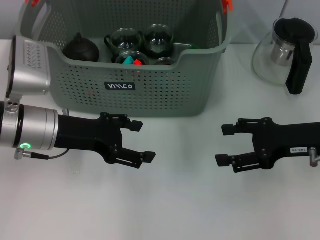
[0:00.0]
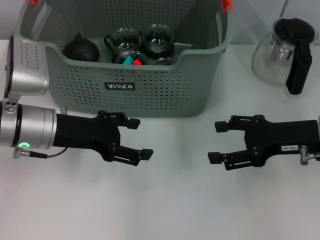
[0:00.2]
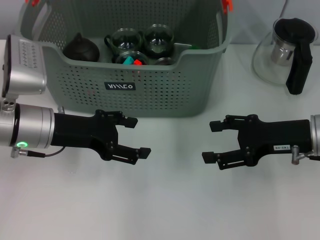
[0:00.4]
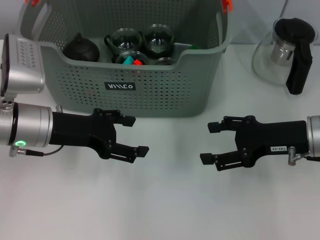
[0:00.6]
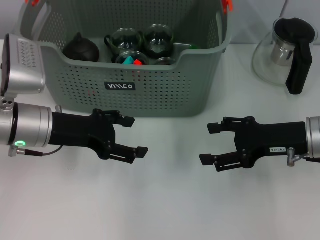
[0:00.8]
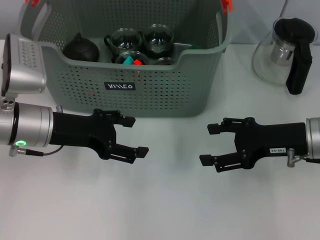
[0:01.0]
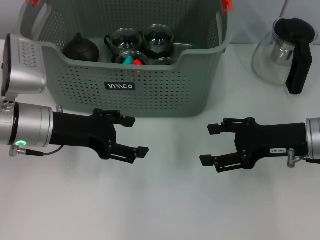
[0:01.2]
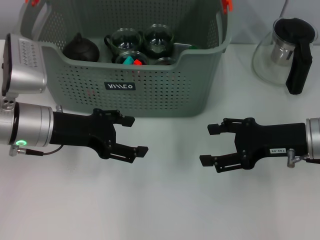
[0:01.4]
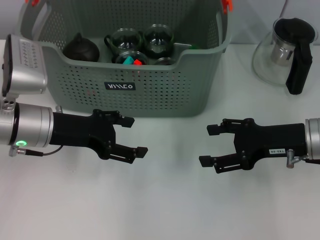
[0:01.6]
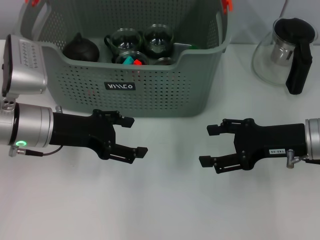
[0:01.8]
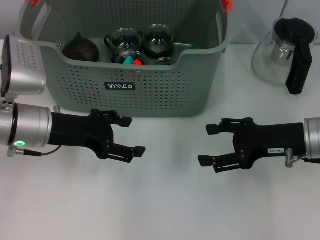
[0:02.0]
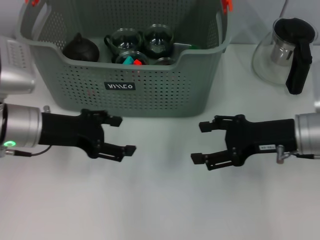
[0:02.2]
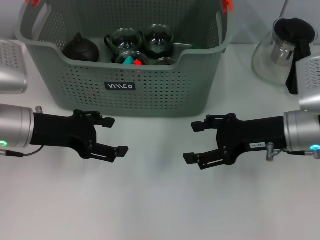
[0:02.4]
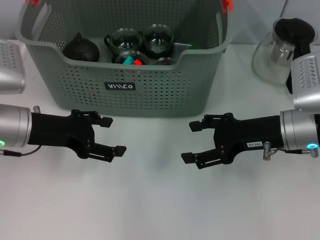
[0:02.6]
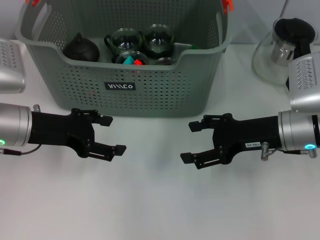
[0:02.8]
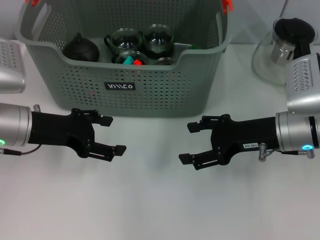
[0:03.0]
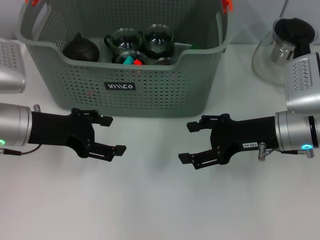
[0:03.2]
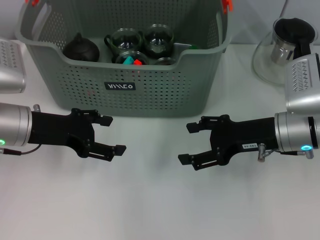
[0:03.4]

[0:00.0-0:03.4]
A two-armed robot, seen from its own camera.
Task of the whole recording: pick up the teacup on the table and place it into the storage bin, pick up the block on the table and place it into the storage bin.
0:00.0 to 0:01.6: The grippers stay close to where they were, moving slightly.
0:01.6 to 0:03.4: The grippers stay close to where they were, moving slightly.
